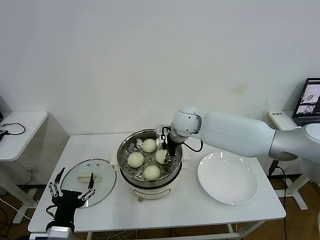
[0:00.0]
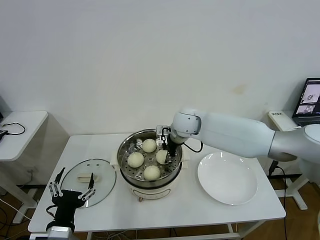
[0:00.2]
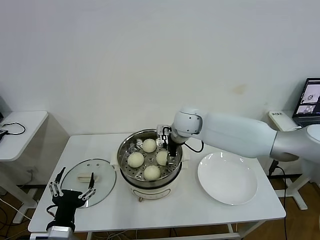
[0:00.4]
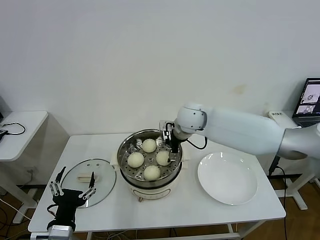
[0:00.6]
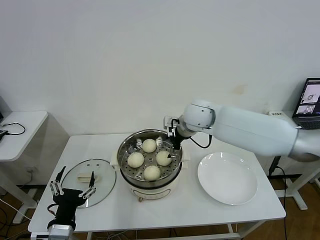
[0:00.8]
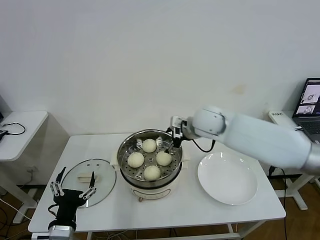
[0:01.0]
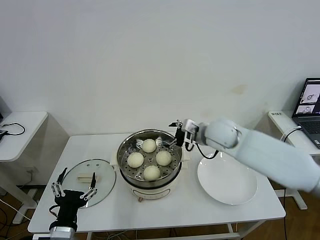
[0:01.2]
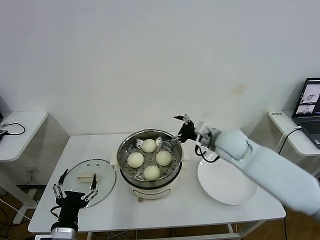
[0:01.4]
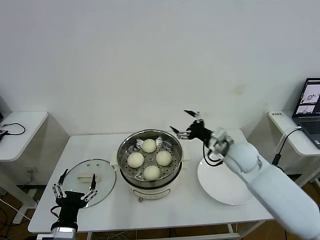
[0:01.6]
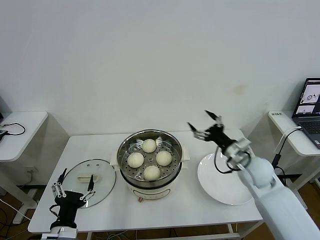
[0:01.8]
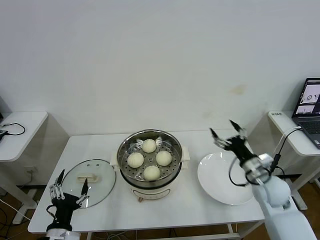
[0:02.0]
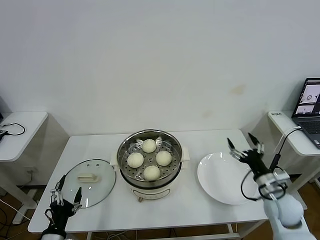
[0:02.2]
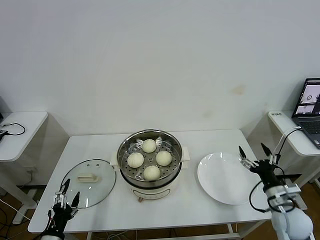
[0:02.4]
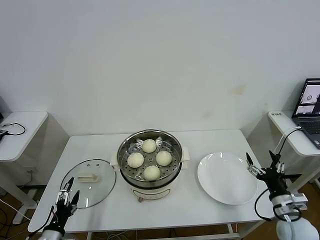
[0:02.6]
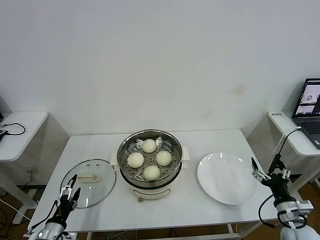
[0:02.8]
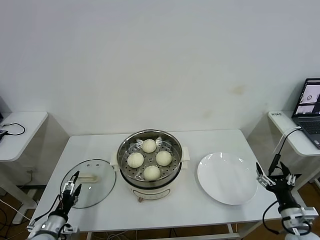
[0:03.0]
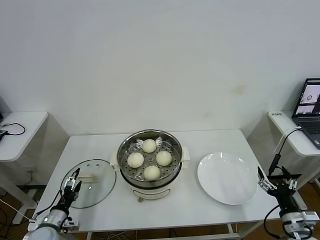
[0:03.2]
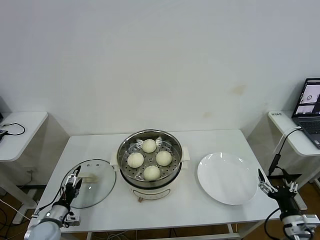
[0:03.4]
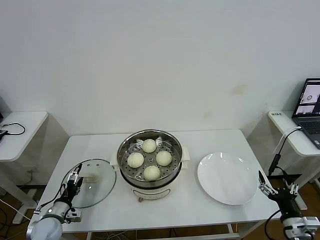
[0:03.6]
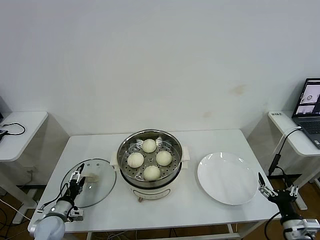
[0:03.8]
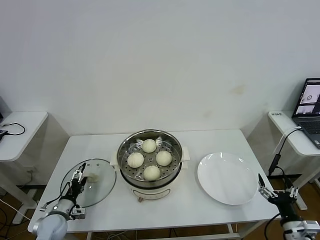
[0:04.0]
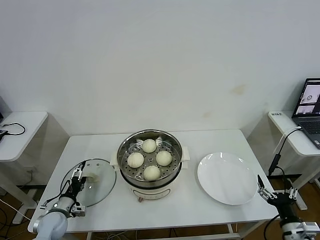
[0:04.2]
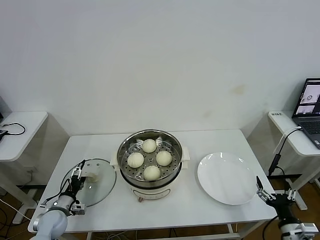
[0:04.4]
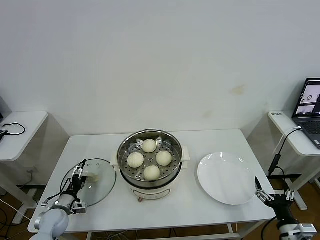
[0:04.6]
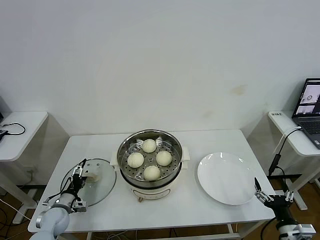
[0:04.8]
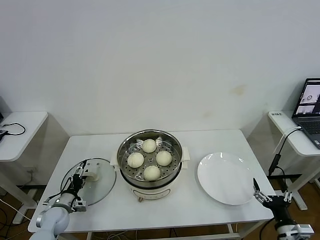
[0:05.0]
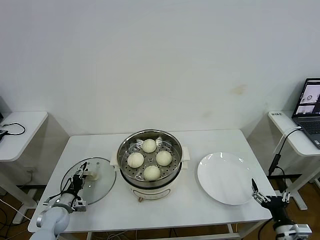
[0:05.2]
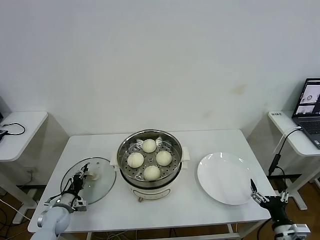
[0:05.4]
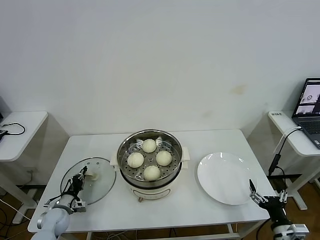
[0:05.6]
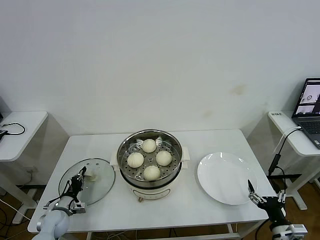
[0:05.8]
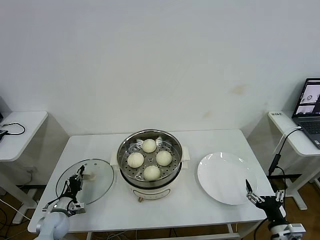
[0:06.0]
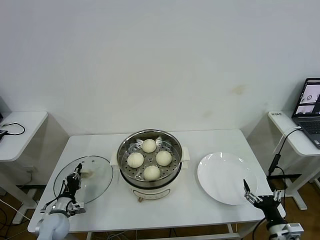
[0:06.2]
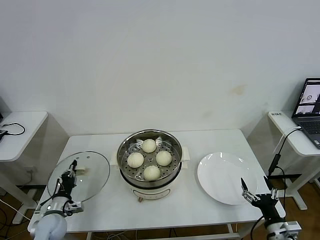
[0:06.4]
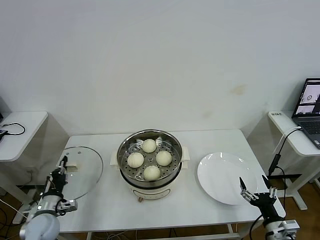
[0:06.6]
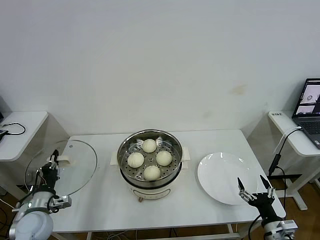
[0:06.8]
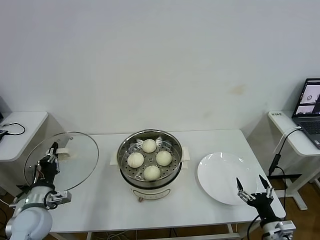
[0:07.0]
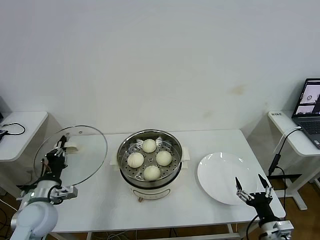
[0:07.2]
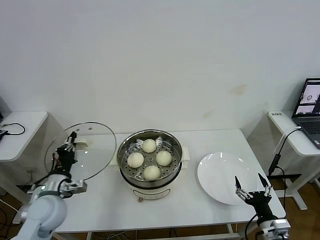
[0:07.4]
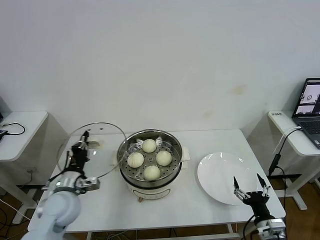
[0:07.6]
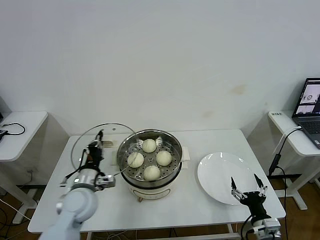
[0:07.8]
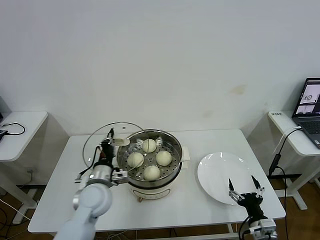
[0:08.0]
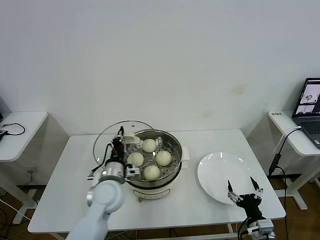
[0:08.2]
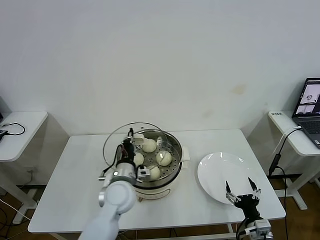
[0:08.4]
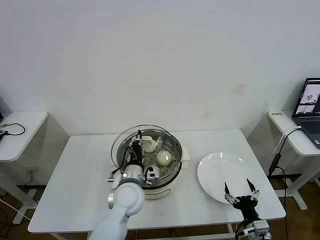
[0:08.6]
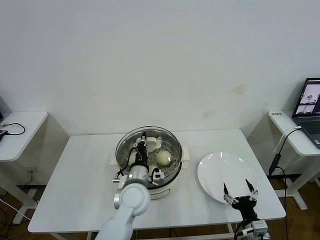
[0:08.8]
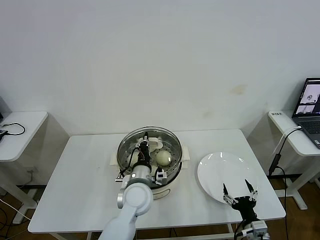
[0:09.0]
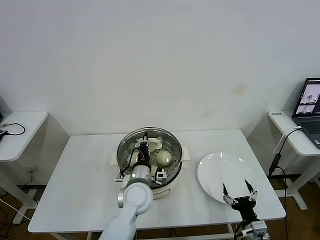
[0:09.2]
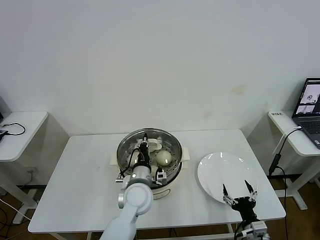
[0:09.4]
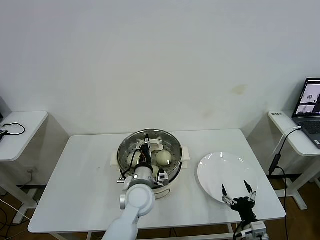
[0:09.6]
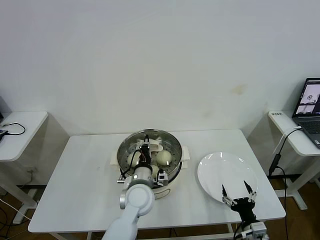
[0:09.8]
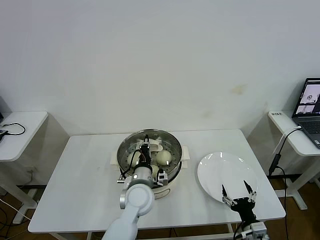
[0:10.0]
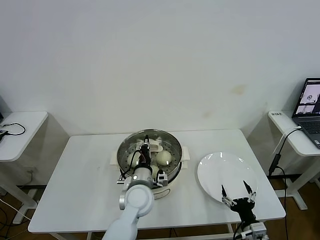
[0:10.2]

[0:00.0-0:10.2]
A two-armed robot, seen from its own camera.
Task of the whole recording: take steamed baozi put them in steamer then cover it.
Step, 0:00.6 to 0:05.6: Grasp the pot lid with left gripper.
0:00.0 to 0:01.4: The right gripper moves to the right and backward, approximately 15 cm, and opens its fingers.
0:01.4 to 0:03.0: The left gripper is displaced to the left, downward and forward by some 20 cm, while the right gripper is displaced backward, to the right and downward by roughly 35 cm.
0:03.0 to 0:04.4: The left gripper moves forward, about 10 cm.
0:04.4 to 0:05.8: The left gripper closes up.
0:05.8 to 0:07.2: The left gripper moves upward, approximately 20 cm.
0:07.2 to 0:08.8: The right gripper changes place by about 5 cm, while the left gripper moves to the right, about 25 cm.
0:08.8 to 0:10.2: The grippers make only small movements.

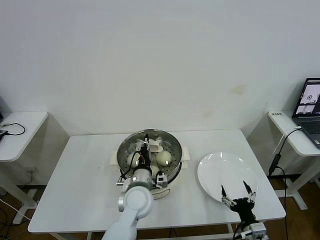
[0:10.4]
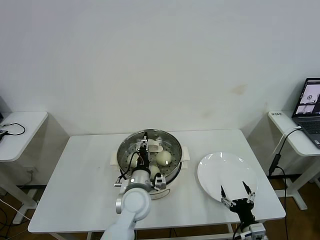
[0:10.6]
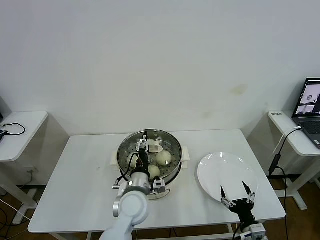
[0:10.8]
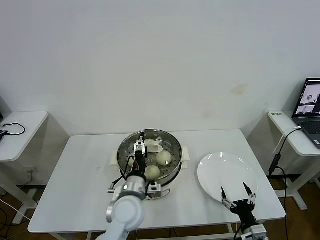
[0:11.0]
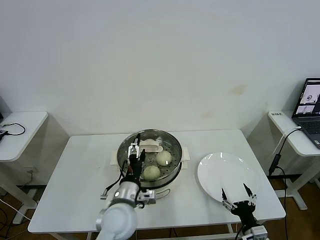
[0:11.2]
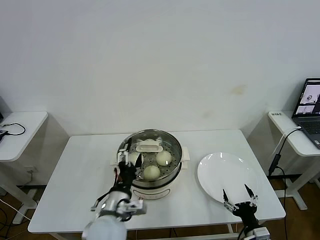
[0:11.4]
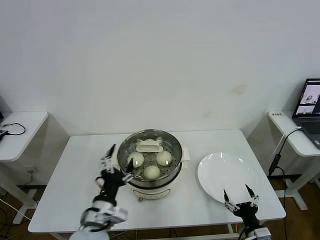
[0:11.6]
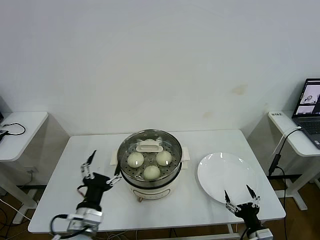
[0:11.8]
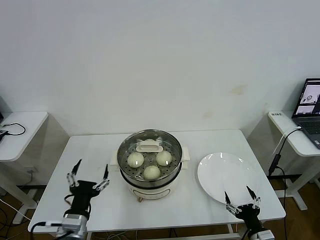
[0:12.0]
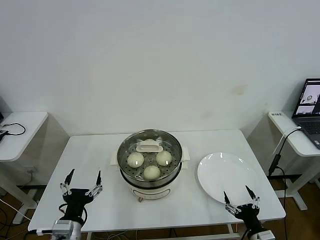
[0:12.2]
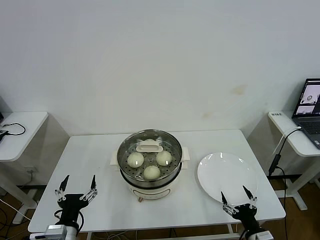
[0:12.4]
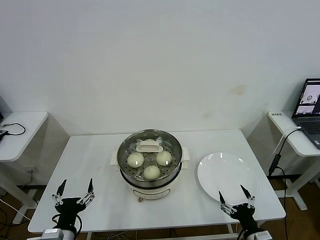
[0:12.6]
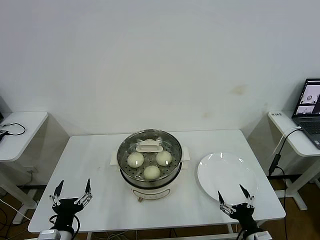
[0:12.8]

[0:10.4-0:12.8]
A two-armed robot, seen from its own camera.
Task of the whole recording: take steamed baozi put them in steamer then cover it.
0:10.4 to 0:11.6: The left gripper moves backward and to the left, about 15 cm, and opens.
0:11.6 to 0:12.8: The left gripper heads to the left, backward and downward, covering about 15 cm.
